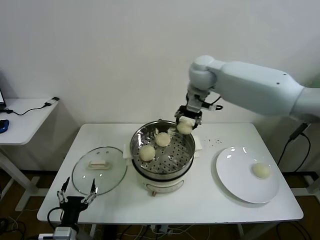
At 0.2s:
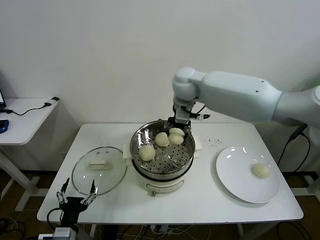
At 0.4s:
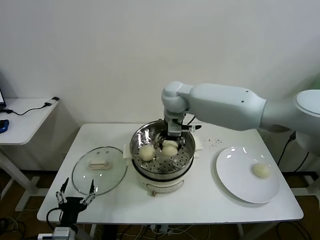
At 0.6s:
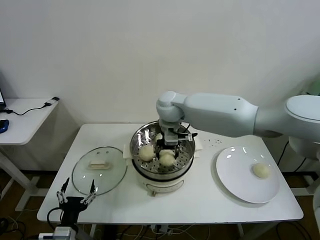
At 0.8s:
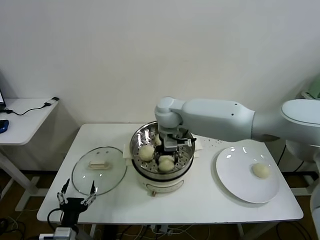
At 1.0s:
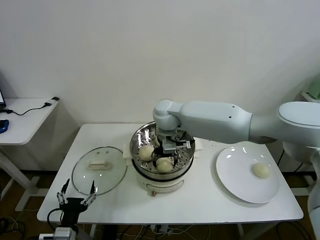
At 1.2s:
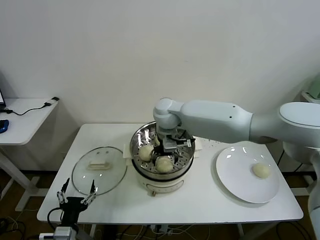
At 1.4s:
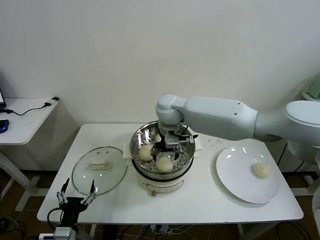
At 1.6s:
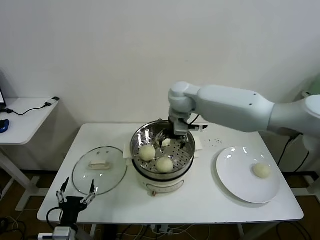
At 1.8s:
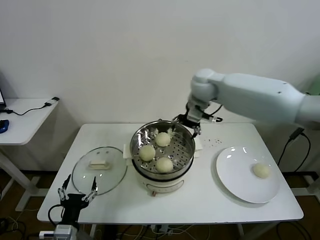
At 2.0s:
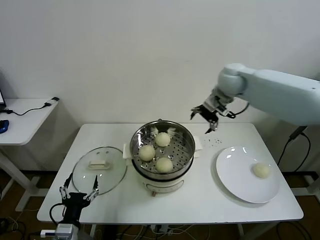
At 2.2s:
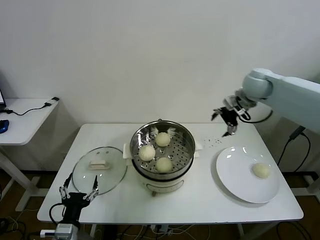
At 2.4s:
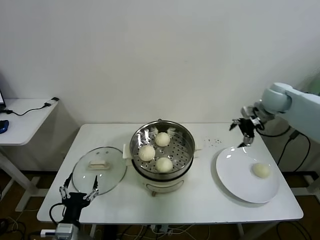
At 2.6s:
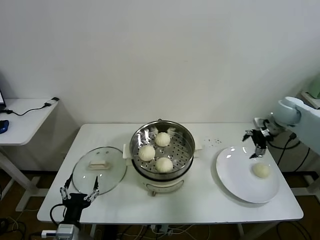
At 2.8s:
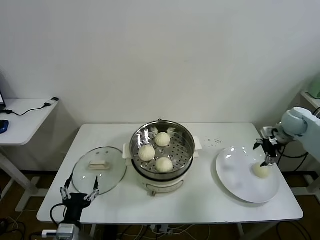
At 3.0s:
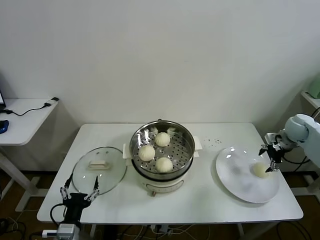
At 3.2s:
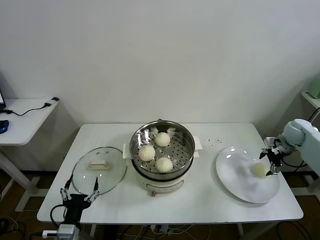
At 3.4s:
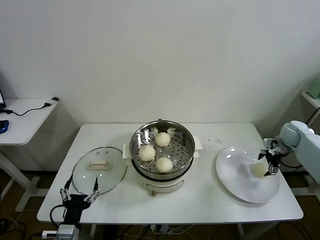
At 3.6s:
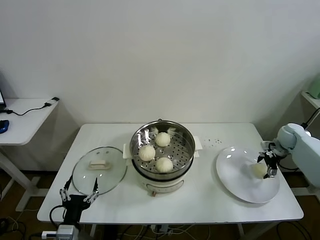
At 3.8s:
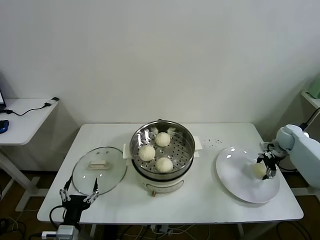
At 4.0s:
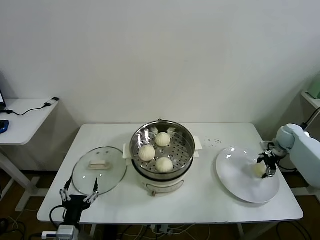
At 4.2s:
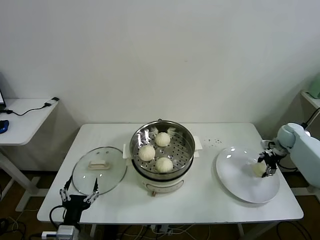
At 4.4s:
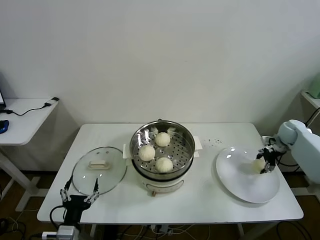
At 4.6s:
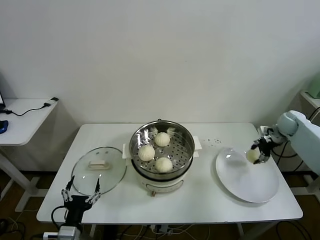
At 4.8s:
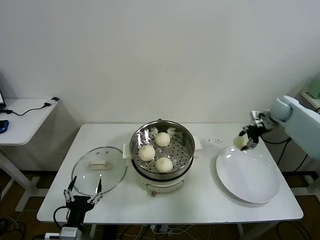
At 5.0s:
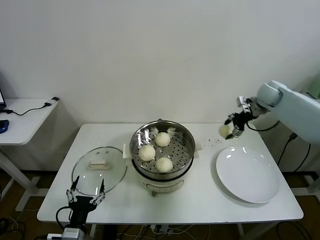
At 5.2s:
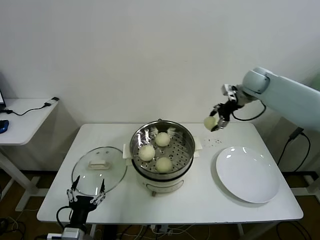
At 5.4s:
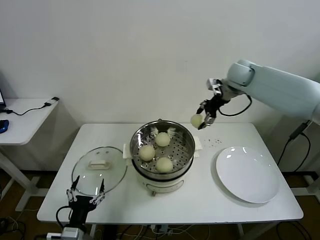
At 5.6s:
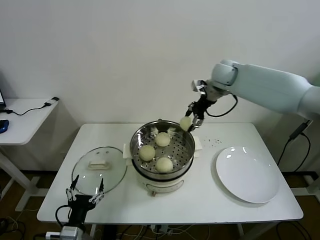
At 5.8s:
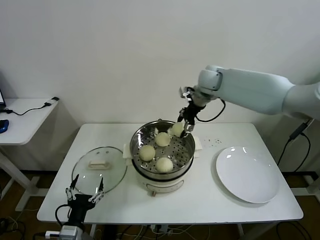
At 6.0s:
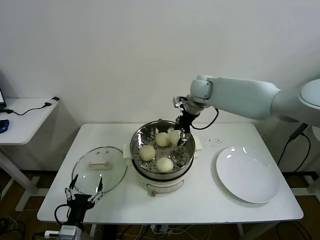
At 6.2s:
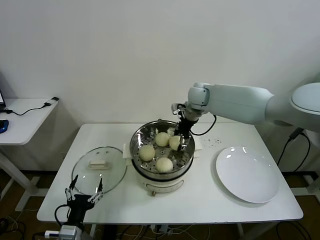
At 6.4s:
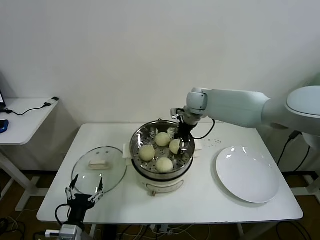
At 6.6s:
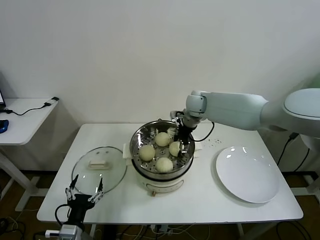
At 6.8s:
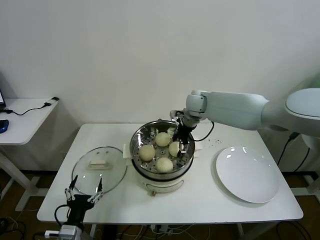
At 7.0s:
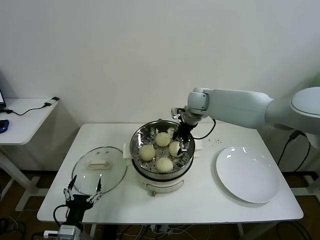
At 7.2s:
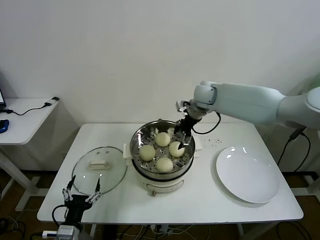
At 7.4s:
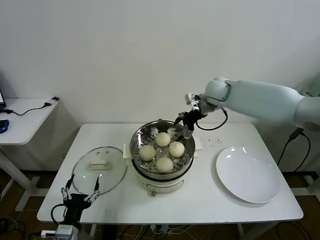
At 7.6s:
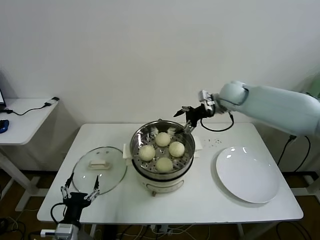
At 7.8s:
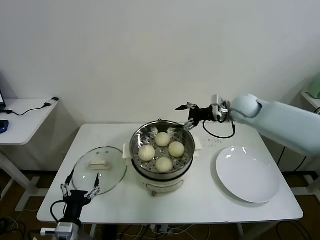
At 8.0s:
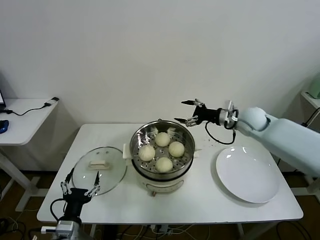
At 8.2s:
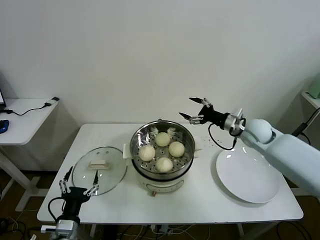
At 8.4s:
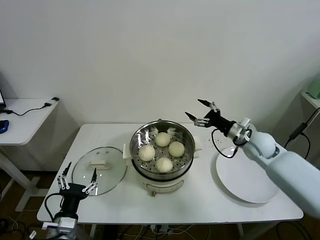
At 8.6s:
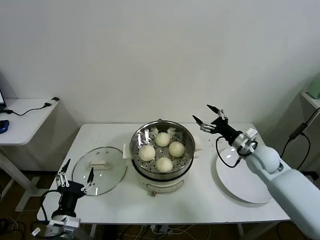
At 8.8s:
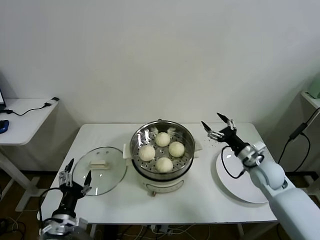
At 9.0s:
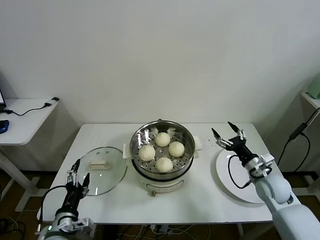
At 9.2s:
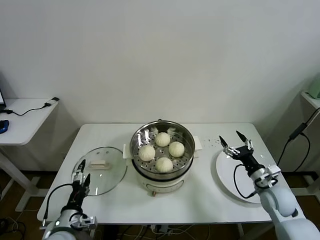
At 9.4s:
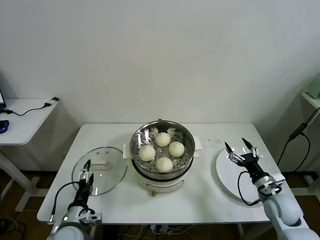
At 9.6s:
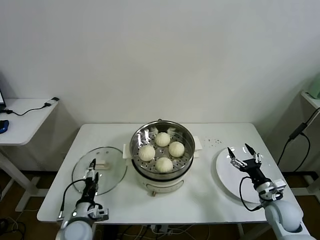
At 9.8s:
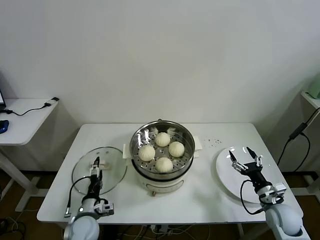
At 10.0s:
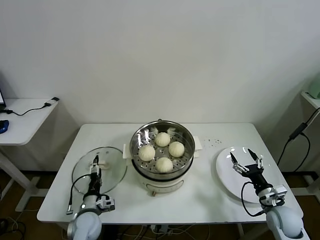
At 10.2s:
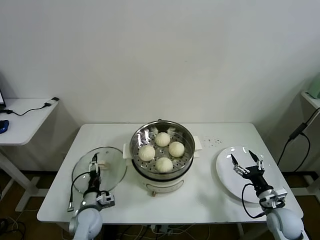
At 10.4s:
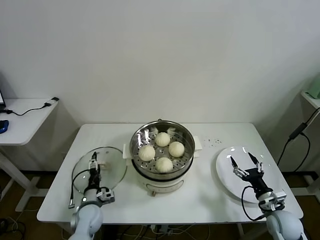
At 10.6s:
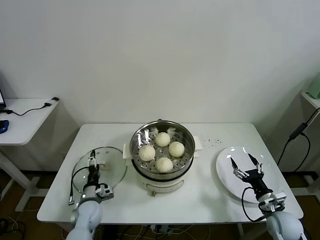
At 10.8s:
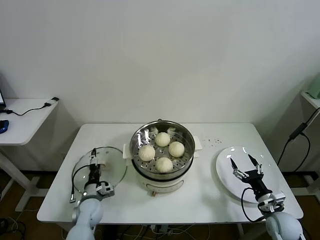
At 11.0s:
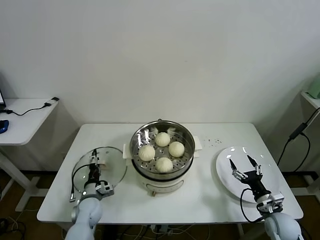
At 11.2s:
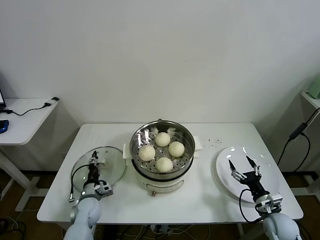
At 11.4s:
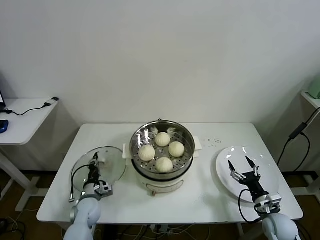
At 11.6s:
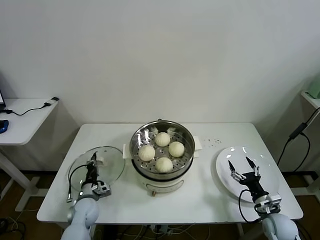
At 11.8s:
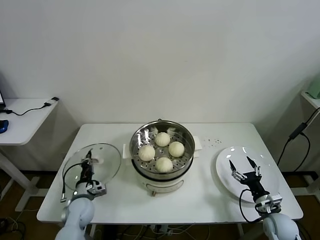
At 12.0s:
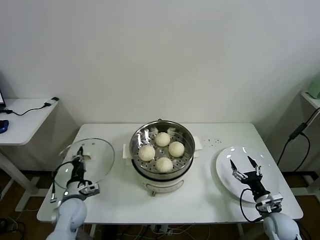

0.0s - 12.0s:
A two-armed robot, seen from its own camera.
Task of the whole recording: take steamed baozi put them in steamer then cover it.
Step, 1.4s - 4.0s: Grasp the baozi in the plate with right gripper.
Step, 4.2s - 6.8s: Place the baozi on the steamer with right gripper.
Step, 7.0s - 11.4s: Grasp the pot lid with left gripper.
0.0s - 1.6s: The right gripper shifts about 5 cm downward, and opens up.
1.6s - 3.0s: The right gripper travels to the right by some 40 cm.
3.0s - 4.4s: The right gripper heads downward, covering some 5 cm, and closes.
4.4s - 6.0s: The right gripper moves to the left and upward, about 40 cm.
6.0s - 7.6s: The right gripper shifts some 10 cm to the right, and opens.
7.6s - 9.0s: The right gripper goes approximately 35 cm downward, backward and to the right.
9.0s - 10.4s: The right gripper shifts some 15 cm backward and downward. Meanwhile the left gripper goes about 15 cm forward and downward.
10.4s - 12.0s: The left gripper shifts by about 5 cm, and closes up.

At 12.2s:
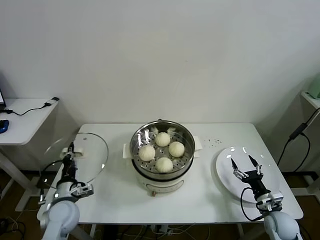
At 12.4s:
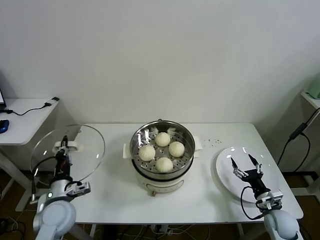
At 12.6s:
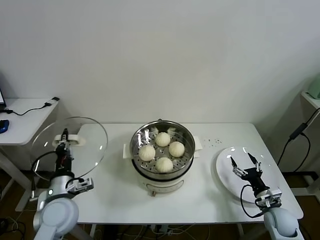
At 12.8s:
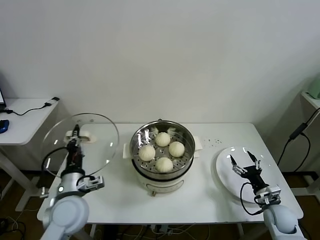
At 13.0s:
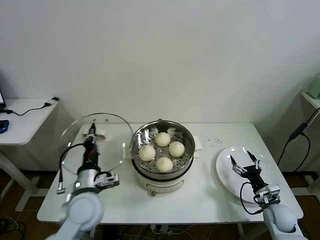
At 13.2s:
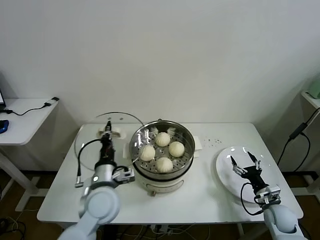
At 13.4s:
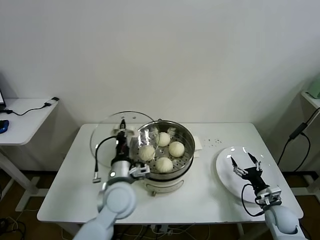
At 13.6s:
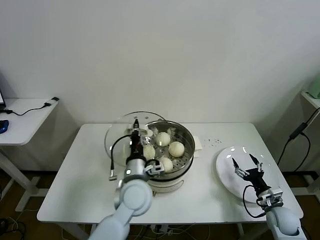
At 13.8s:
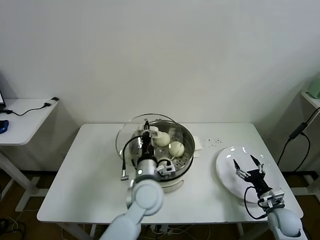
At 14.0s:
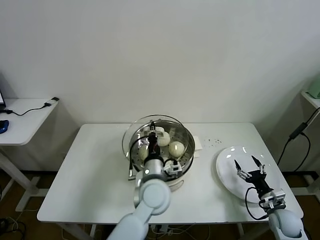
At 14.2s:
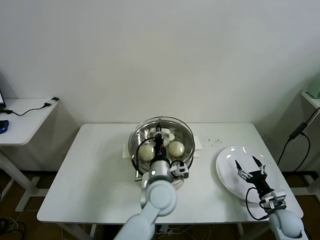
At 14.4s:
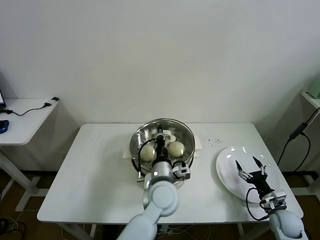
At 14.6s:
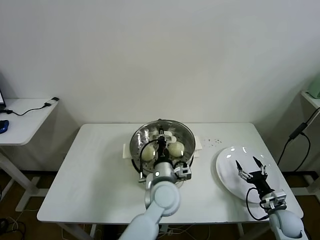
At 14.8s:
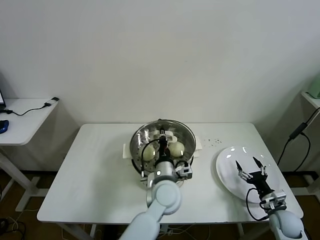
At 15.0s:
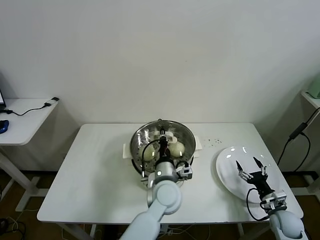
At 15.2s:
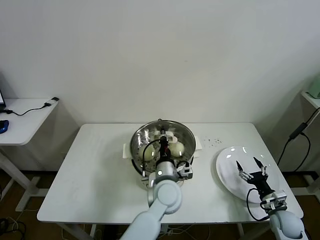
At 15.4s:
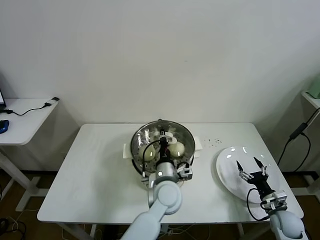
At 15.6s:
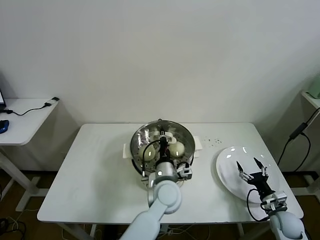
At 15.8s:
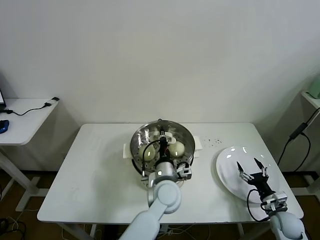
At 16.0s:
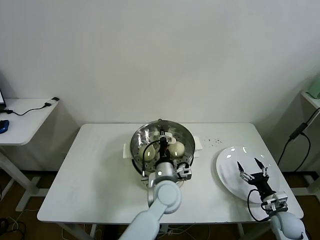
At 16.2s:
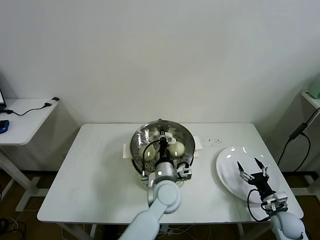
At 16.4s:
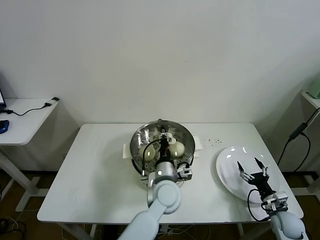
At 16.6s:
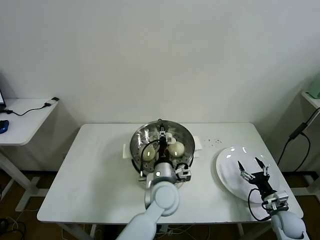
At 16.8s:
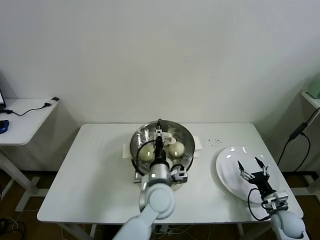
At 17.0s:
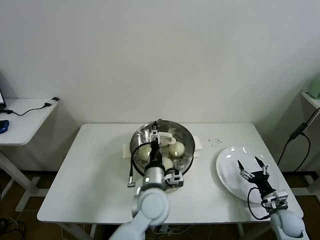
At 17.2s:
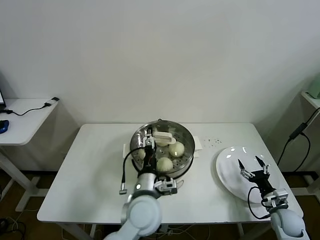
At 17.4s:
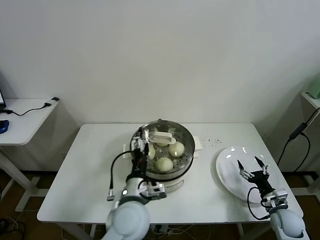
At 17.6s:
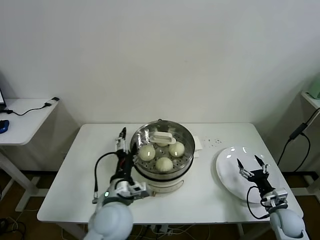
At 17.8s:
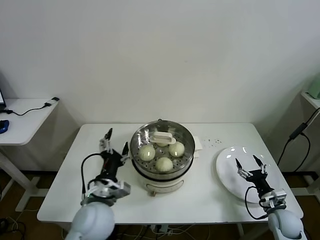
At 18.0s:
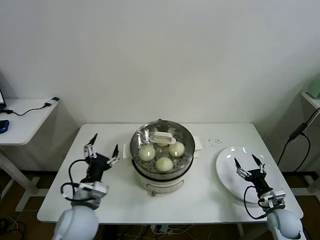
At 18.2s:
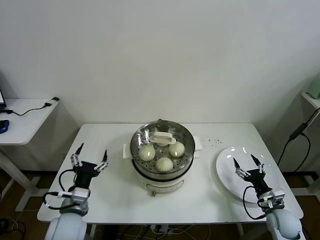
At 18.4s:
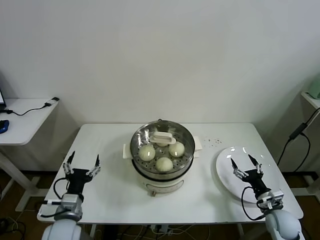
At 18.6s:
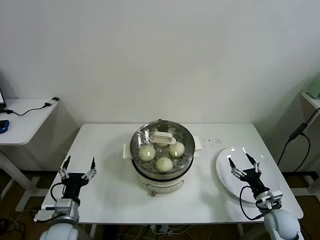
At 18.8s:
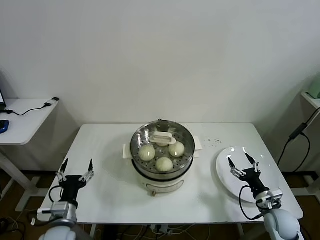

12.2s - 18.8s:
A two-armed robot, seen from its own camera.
Task of the whole recording: take steamed baozi put them in steamer then cover it.
Step, 12.2s - 16.6s: Place the pot lid on the steamer with left gripper.
12.2s - 13.8s: The left gripper moves to the right and upward, some 30 cm.
13.8s - 15.4s: The left gripper travels to the right by approximately 5 cm.
15.4s - 17.2s: The left gripper shifts about 5 cm to the left and backward, and opens.
17.2s - 18.8s: The right gripper shifts by some 5 cm. Meanwhile the left gripper shifts some 25 cm to the left.
